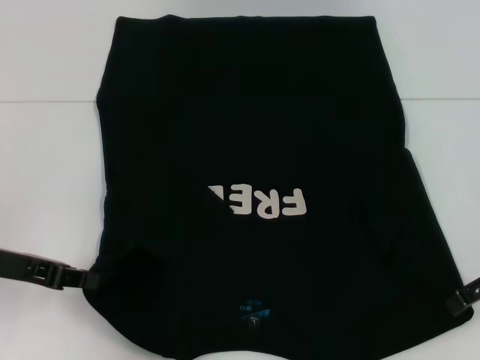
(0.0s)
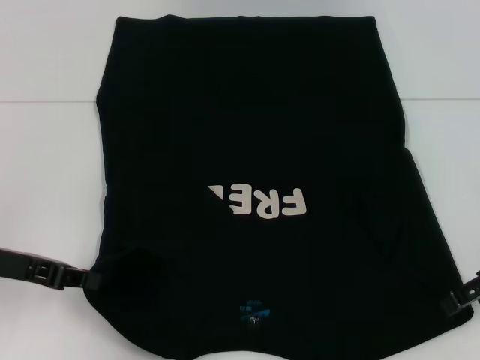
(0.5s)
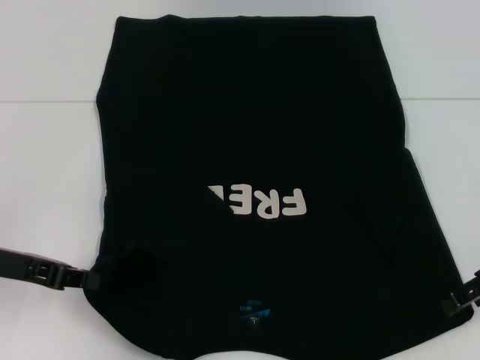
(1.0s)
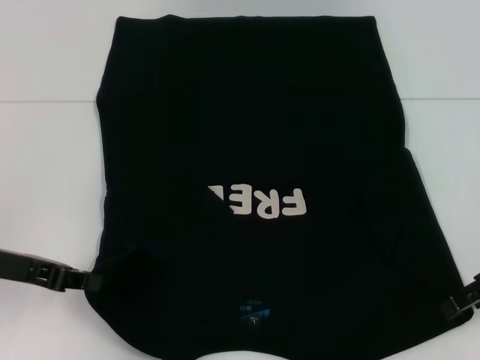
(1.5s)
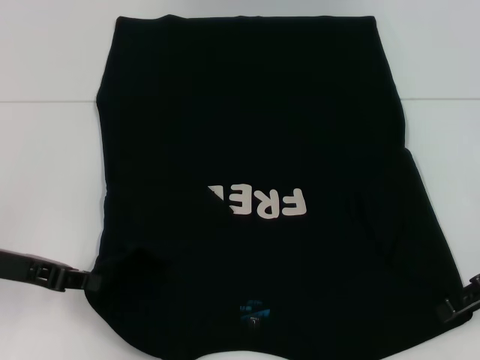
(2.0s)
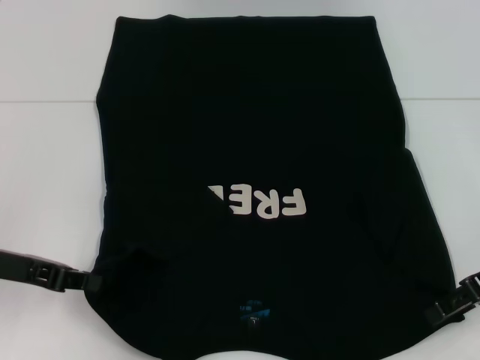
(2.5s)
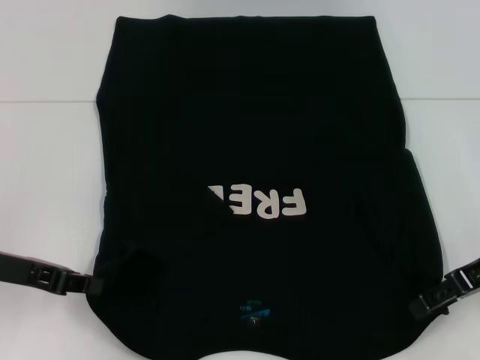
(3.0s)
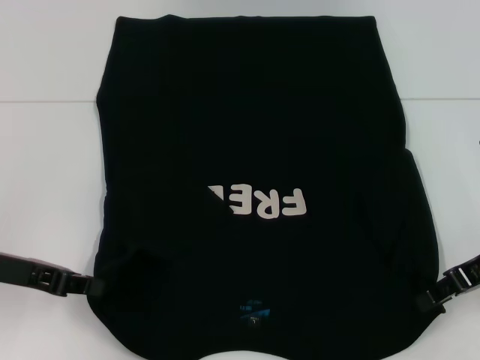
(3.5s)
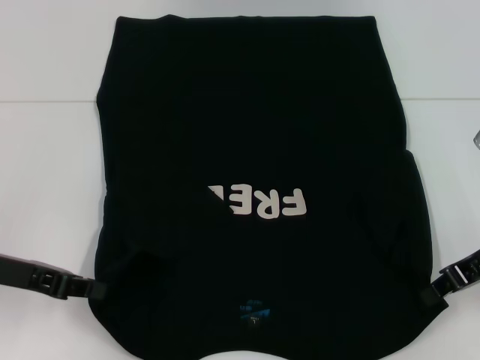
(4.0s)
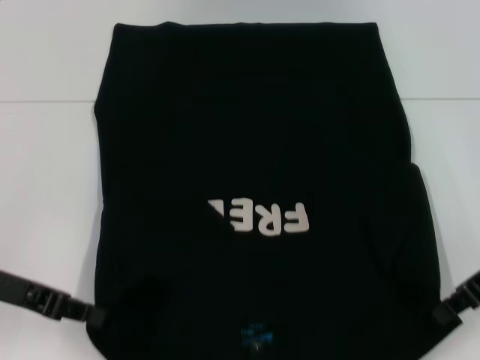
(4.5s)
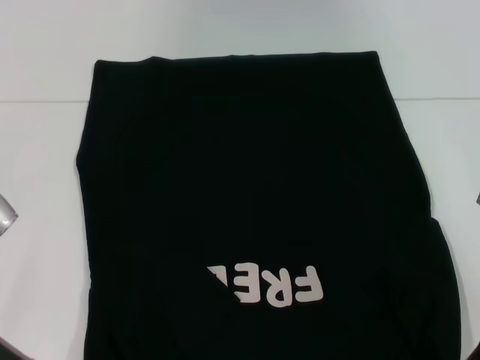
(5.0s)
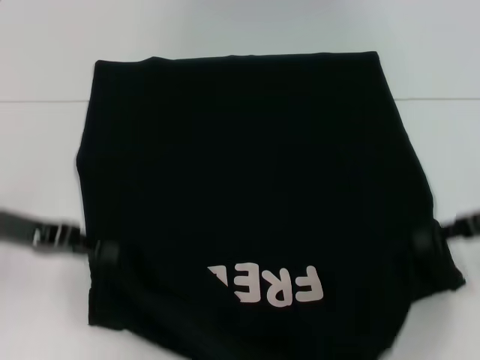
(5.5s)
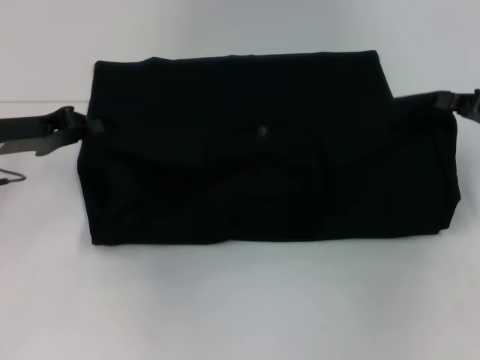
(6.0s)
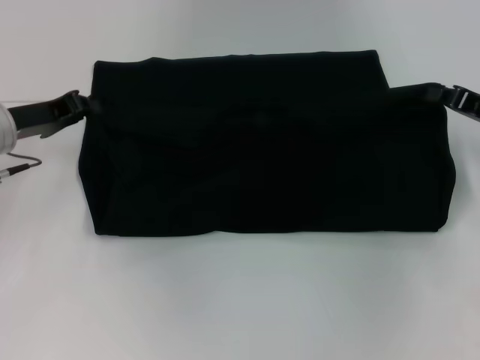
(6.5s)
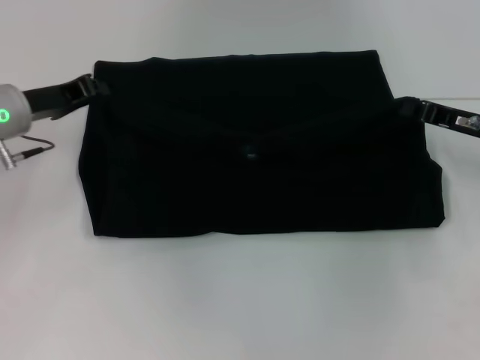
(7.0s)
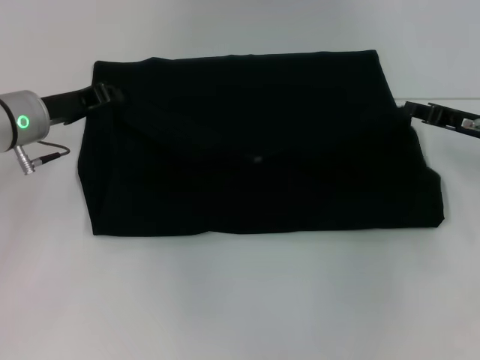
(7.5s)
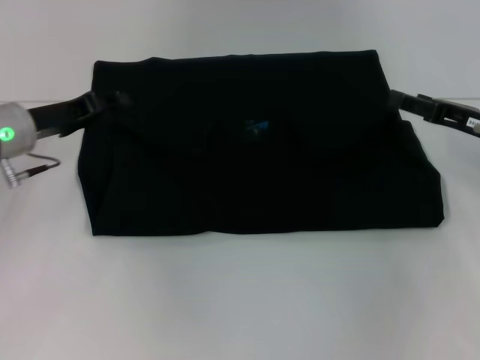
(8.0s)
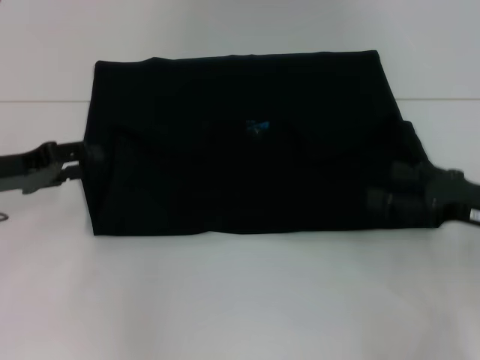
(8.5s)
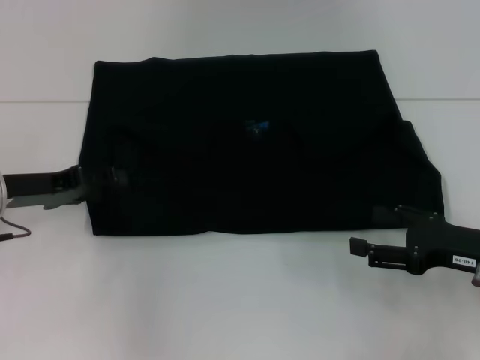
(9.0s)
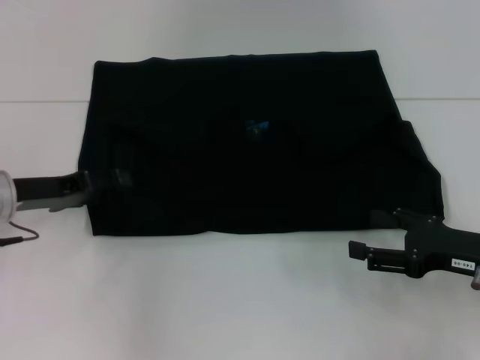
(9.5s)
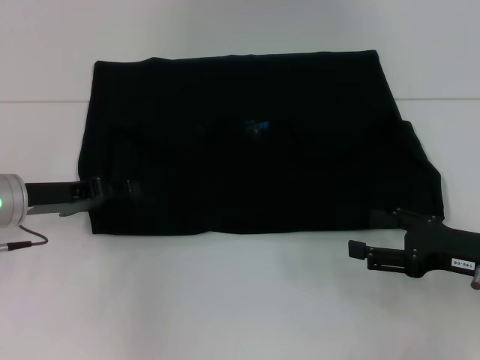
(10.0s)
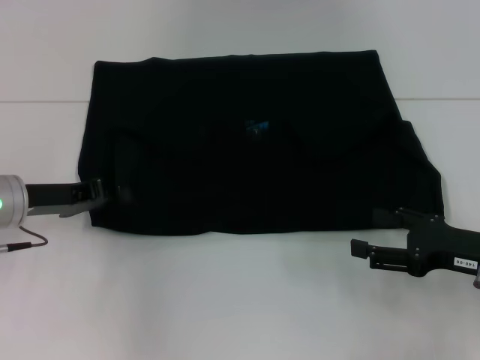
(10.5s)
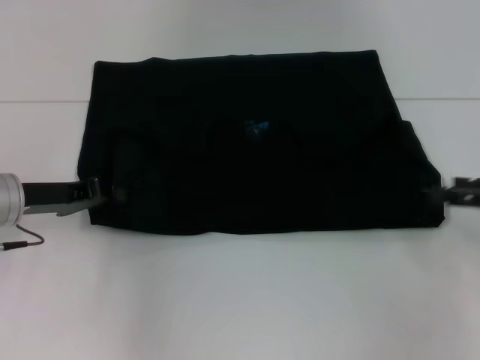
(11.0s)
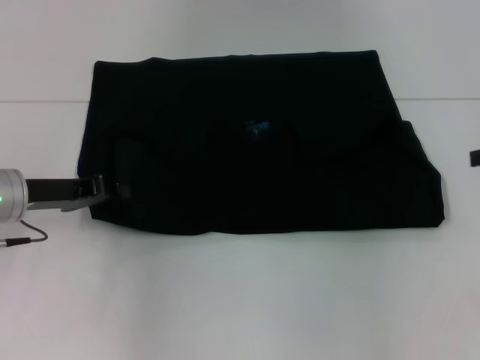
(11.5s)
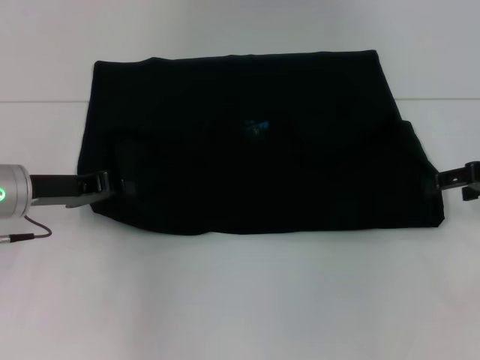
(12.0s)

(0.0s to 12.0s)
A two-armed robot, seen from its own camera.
Step, 0.0s - 3.0s: Grab the bottom right corner with your right hand.
Step, 3.5s - 8.0s: Fold the clothes with your left hand.
Step, 3.5s - 8.0s: Fold the clothes with your right hand.
2.0s - 4.0s: The right gripper closes.
4.0s - 6.0s: The left gripper heads forward, covering about 10 cm. Meanwhile the right gripper shifts roughly 5 cm to the right.
6.0s - 8.0s: The right gripper opens up; the left gripper opens.
8.0s - 10.0s: The right gripper heads backward, covering some 10 cm, and opens up; the left gripper shifts by some 5 cm, and opens its fingers.
10.0s - 12.0s: The left gripper closes; the right gripper travels forward and upward by about 15 cm.

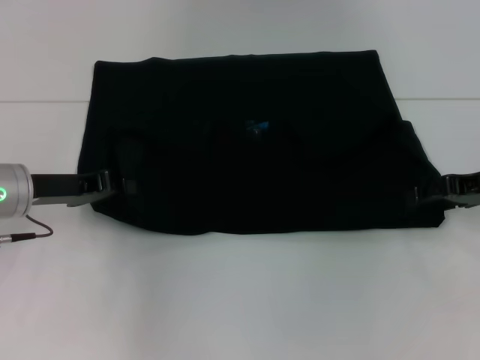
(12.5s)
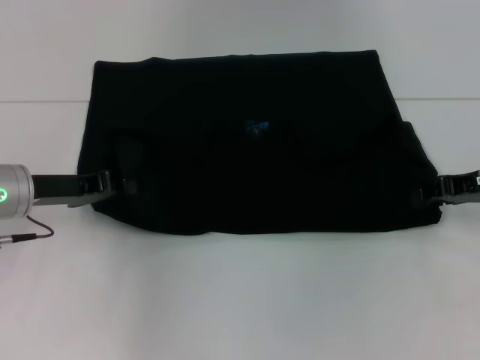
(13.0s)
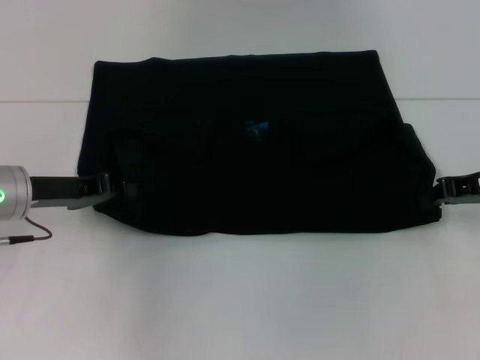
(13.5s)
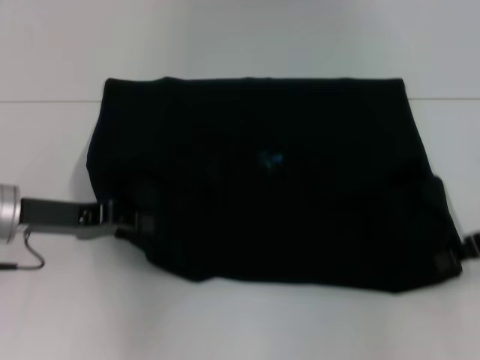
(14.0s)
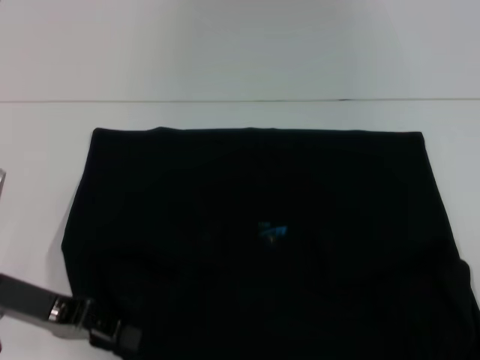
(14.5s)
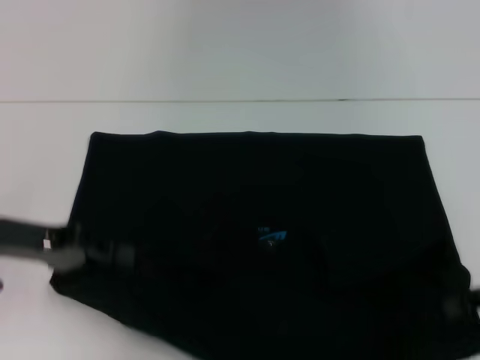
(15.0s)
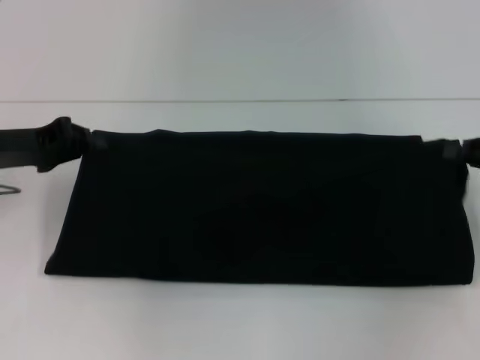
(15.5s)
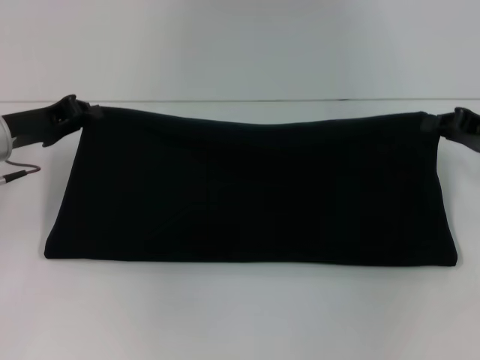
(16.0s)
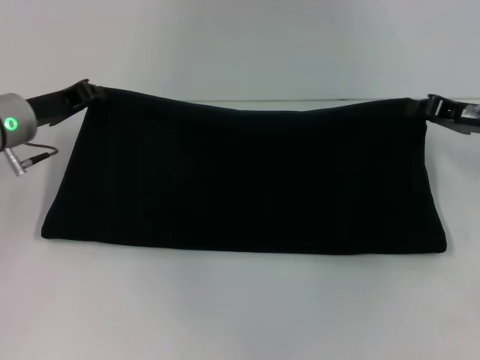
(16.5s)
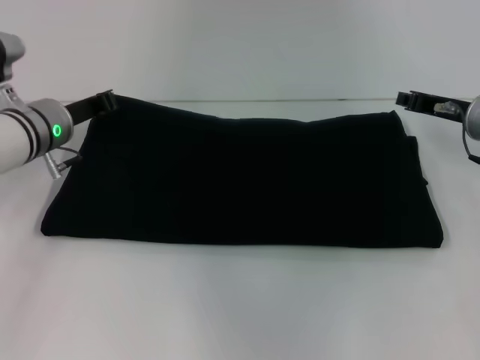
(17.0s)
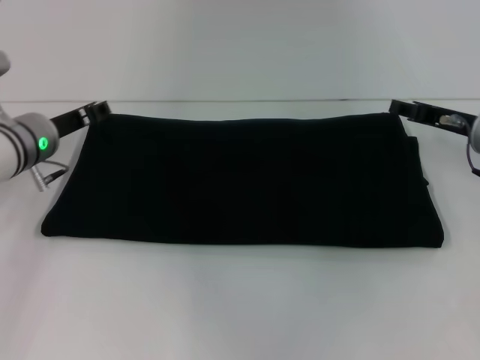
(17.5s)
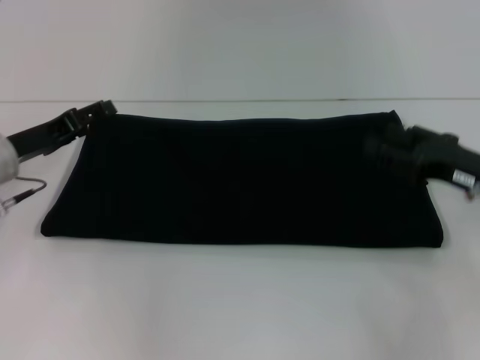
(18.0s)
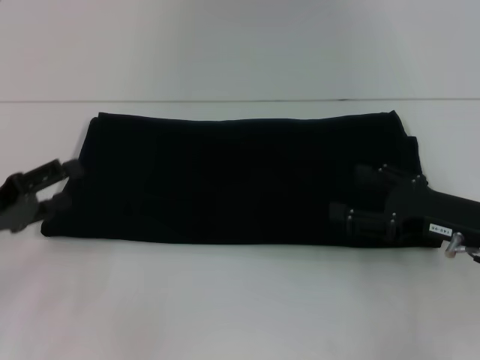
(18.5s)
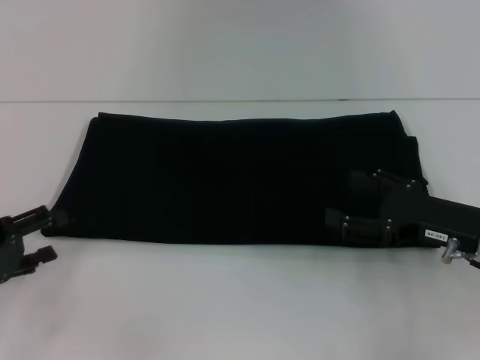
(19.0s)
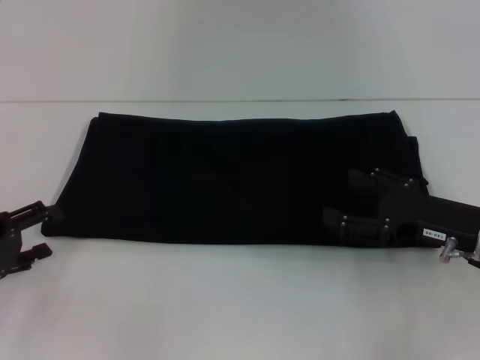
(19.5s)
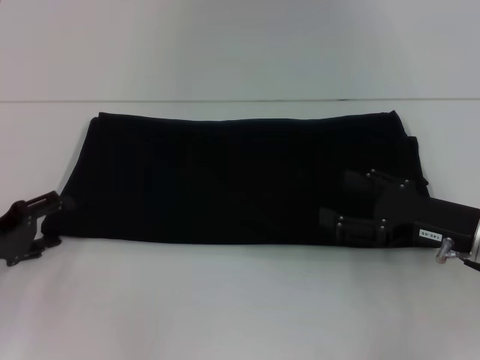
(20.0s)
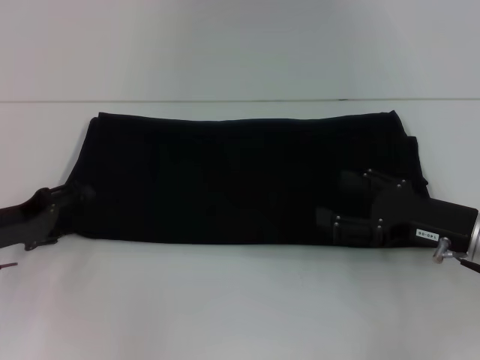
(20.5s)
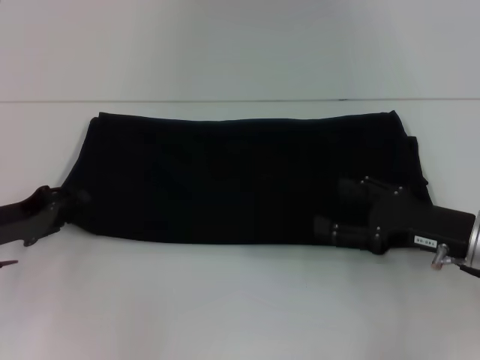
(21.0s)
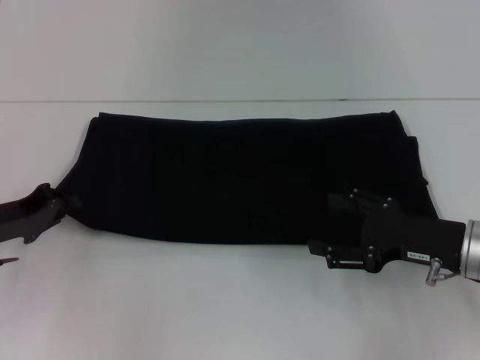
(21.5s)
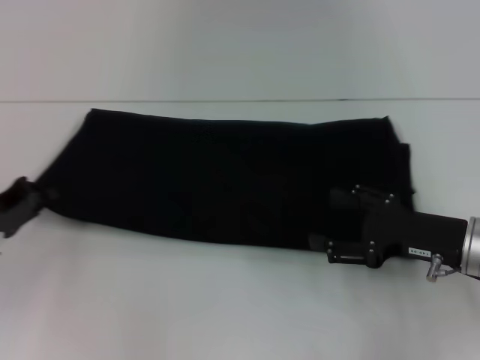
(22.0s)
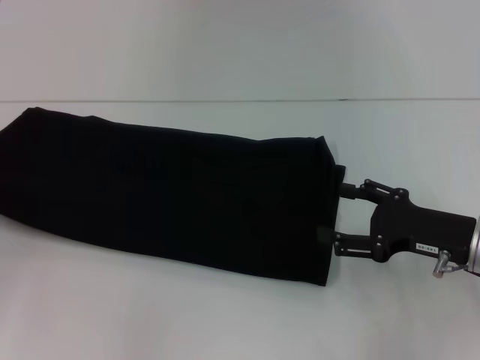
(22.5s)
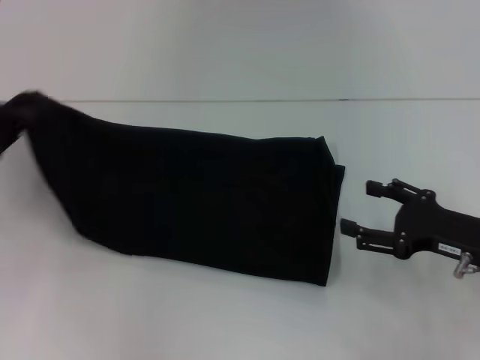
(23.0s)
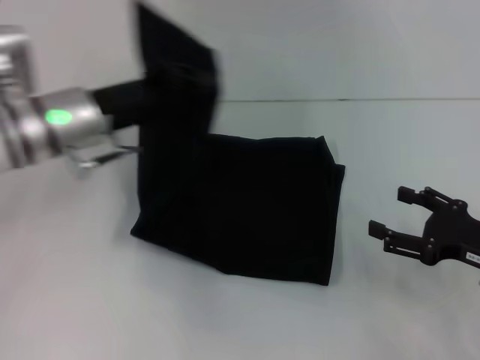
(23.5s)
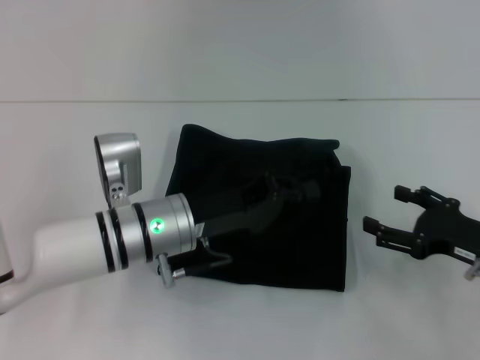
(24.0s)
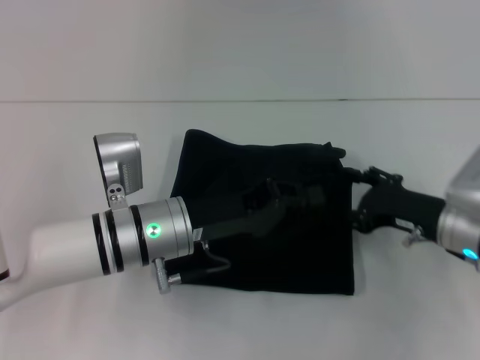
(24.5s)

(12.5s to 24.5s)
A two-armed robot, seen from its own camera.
Step, 12.5s - 14.5s: Pull the clothes with your left hand.
Step, 12.5s - 14.5s: Pull the clothes with your right hand.
Step, 15.0s - 17.5s: Fold the clothes with your right hand.
12.5s - 14.5s: The two grippers go roughly 10 cm backward. The right gripper closes up.
14.5s - 16.5s: Both grippers move forward, some 15 cm.
16.5s - 18.5s: The right gripper shifts about 10 cm backward, and opens up. The left gripper goes approximately 15 cm backward and to the left, and opens its fingers.
18.5s - 20.5s: The grippers make only small movements.
20.5s - 22.5s: The left gripper moves to the left, some 10 cm, and closes up.
22.5s - 24.5s: The left gripper is displaced to the right by some 30 cm.

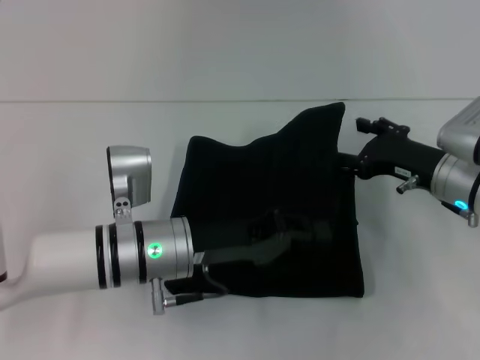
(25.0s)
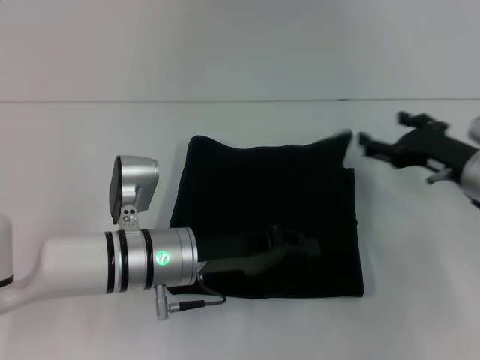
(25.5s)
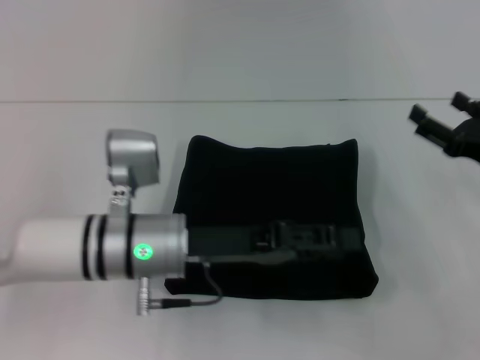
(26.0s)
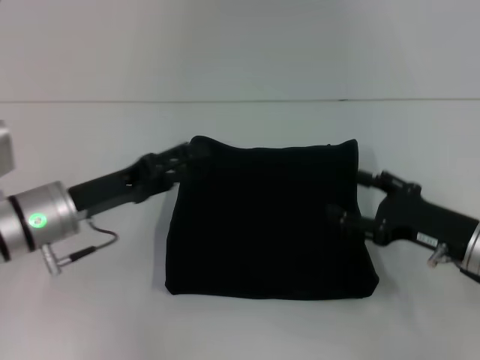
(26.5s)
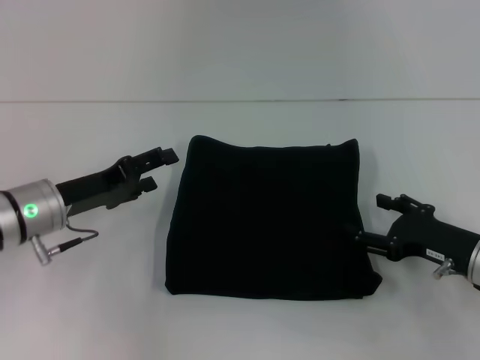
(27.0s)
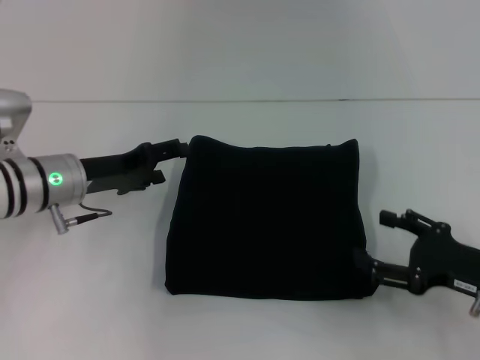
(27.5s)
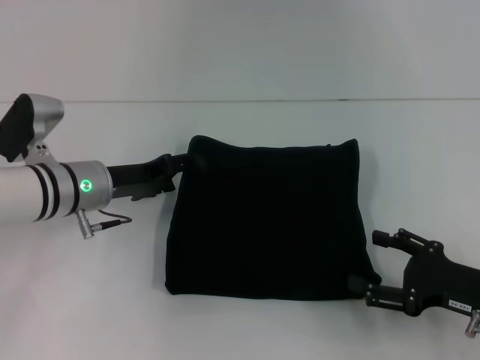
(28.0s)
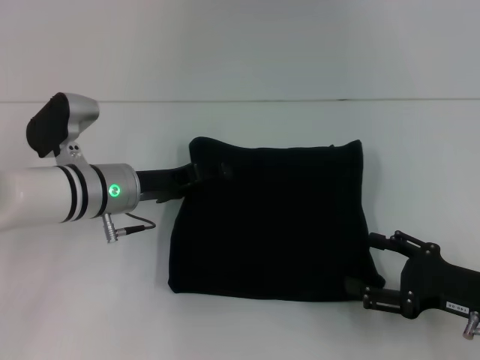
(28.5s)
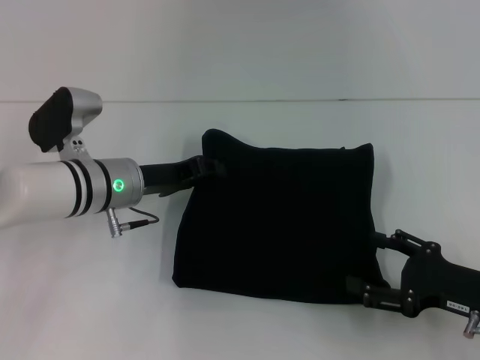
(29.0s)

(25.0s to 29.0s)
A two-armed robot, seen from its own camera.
25.0s - 27.0s: The left gripper travels to the left by approximately 15 cm, and opens its fingers, while the right gripper moves backward, approximately 5 cm.
27.0s - 29.0s: The right gripper moves approximately 5 cm. The left gripper heads to the right, covering approximately 10 cm.
